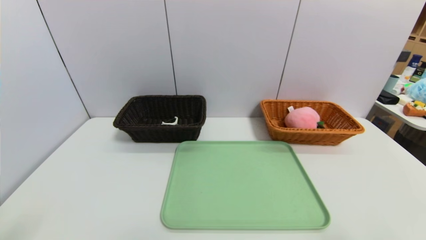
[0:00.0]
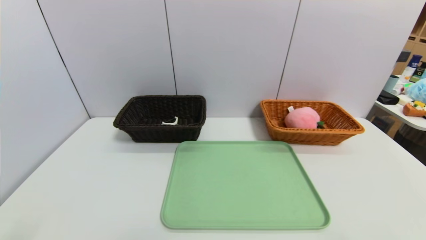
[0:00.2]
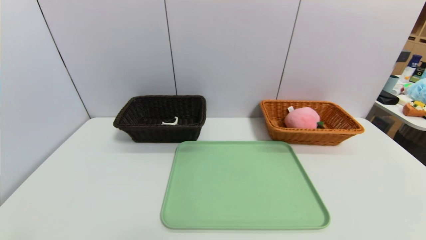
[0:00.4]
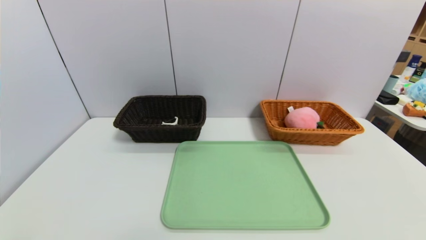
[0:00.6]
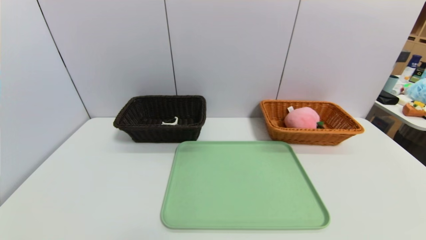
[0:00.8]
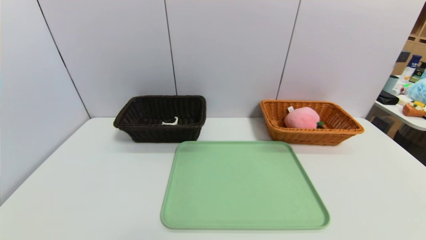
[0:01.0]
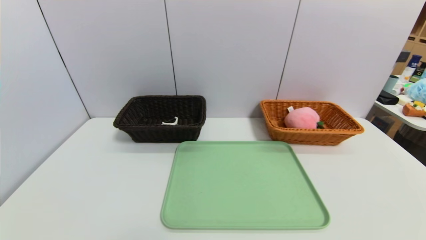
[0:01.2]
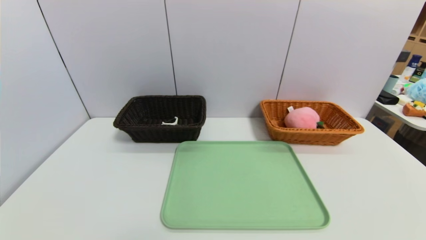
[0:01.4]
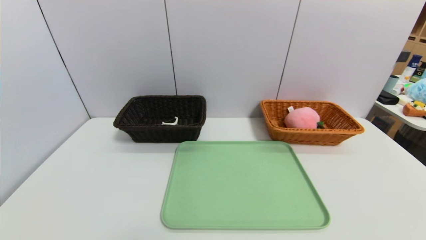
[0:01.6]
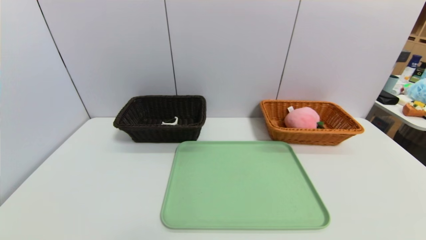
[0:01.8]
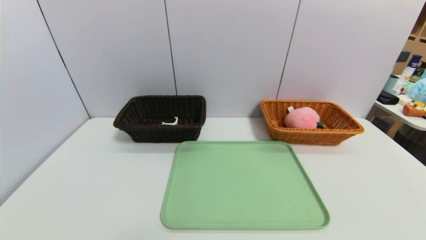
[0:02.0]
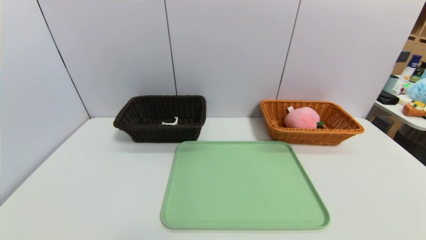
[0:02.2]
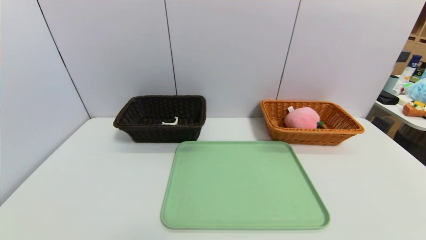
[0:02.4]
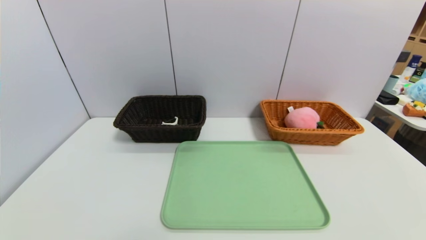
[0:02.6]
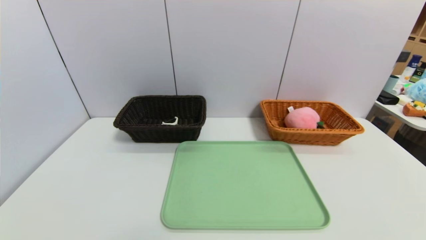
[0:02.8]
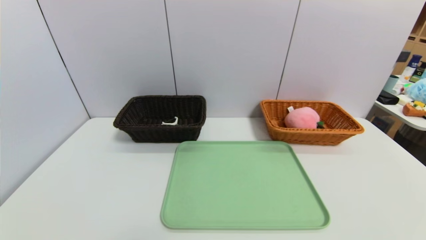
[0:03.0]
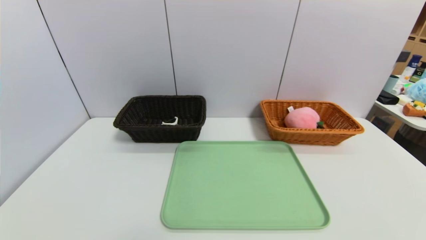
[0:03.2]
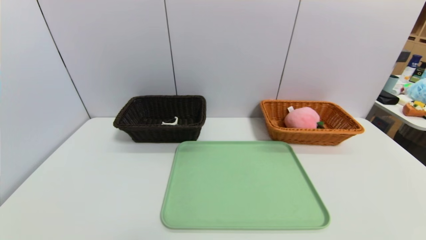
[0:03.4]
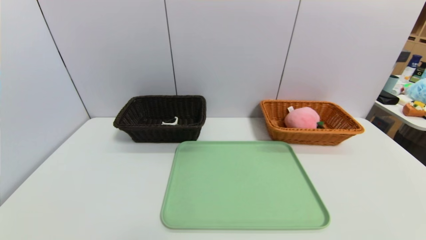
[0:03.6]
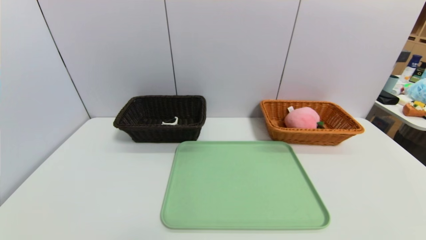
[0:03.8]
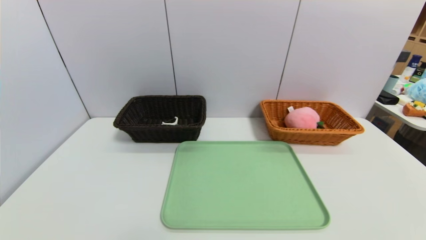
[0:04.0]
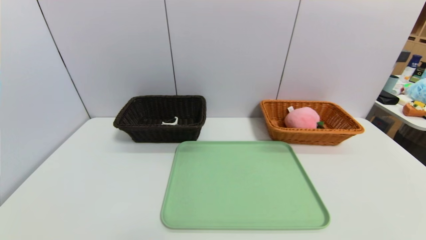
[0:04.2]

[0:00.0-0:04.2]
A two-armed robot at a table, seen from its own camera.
Task of the whole recording: place the food in the right basket with the right gripper, and place the non food items in the left basket with the left gripper.
0:02.8 to 0:04.2: Neither gripper changes place.
